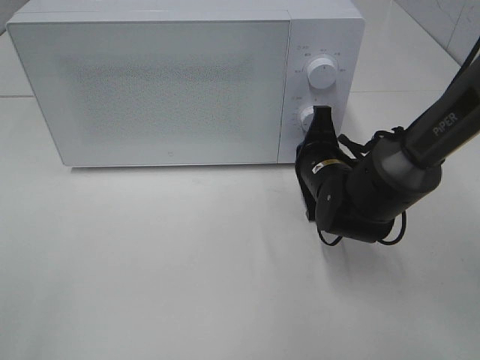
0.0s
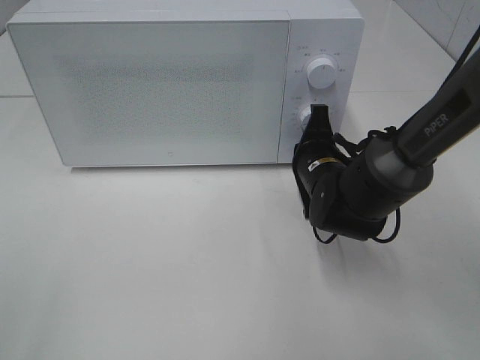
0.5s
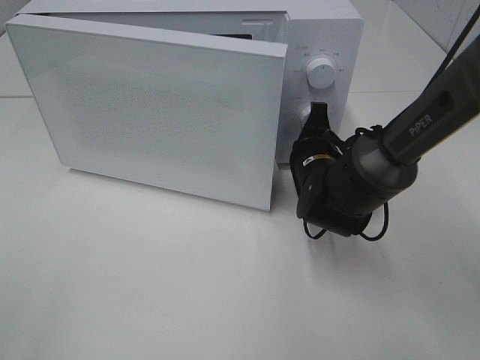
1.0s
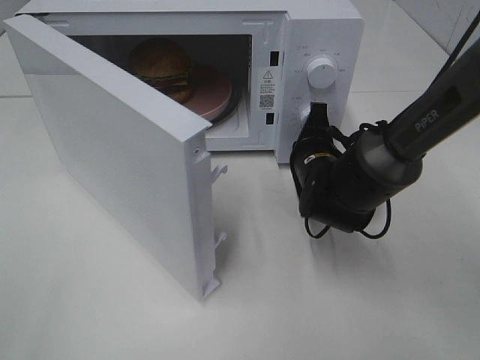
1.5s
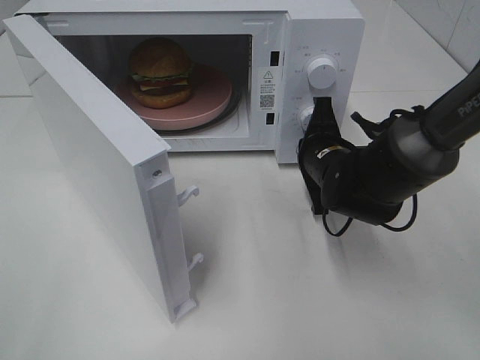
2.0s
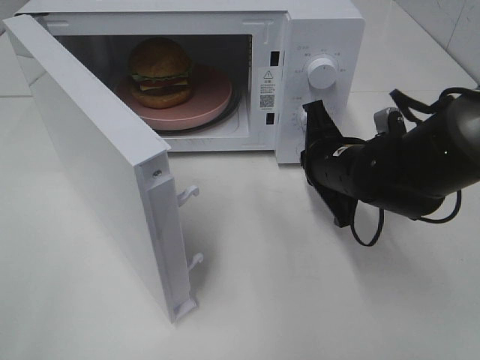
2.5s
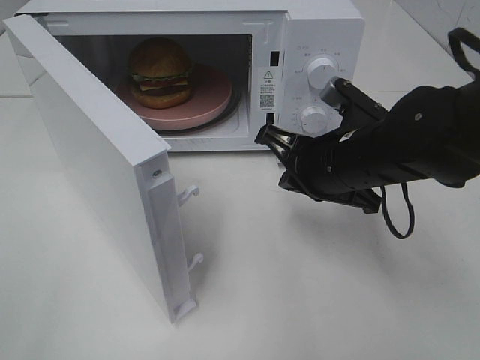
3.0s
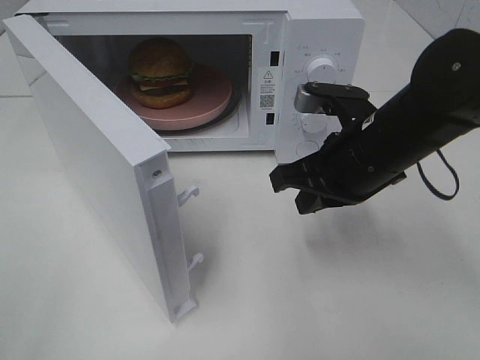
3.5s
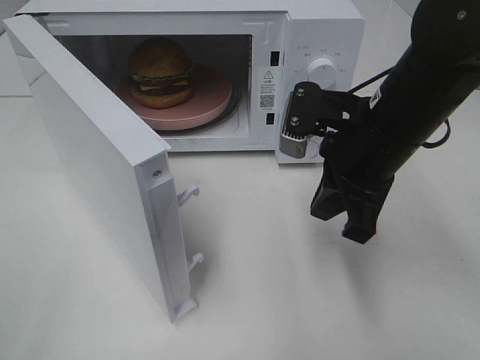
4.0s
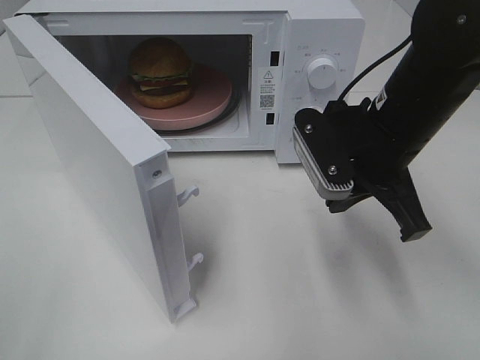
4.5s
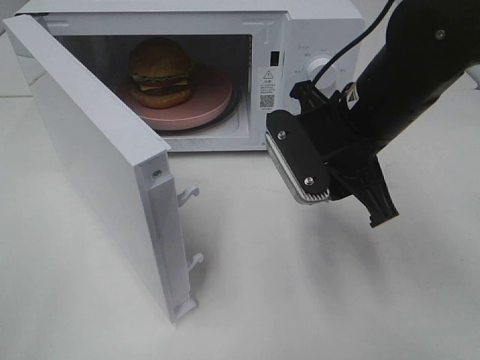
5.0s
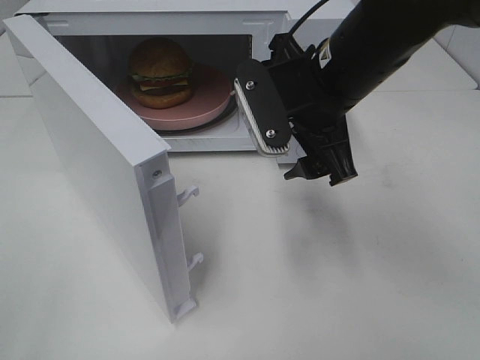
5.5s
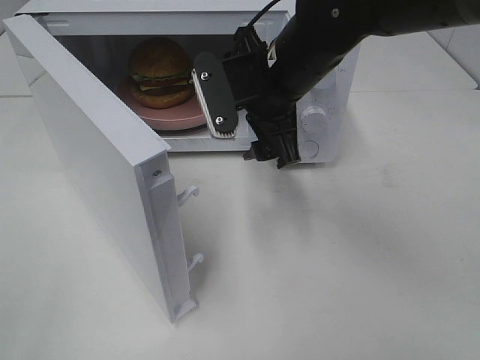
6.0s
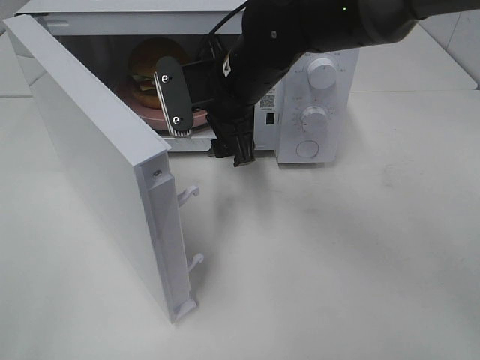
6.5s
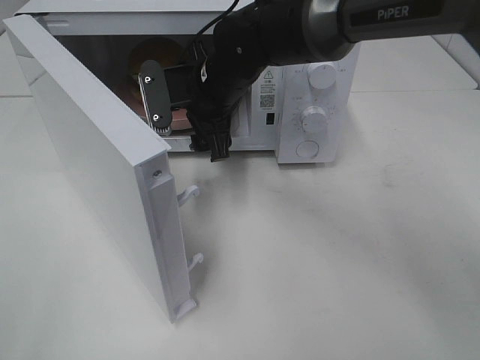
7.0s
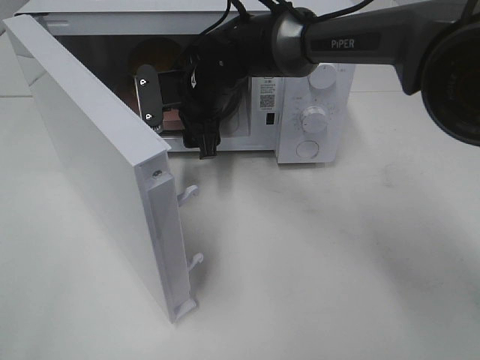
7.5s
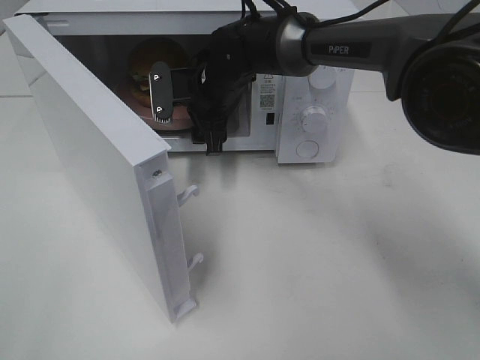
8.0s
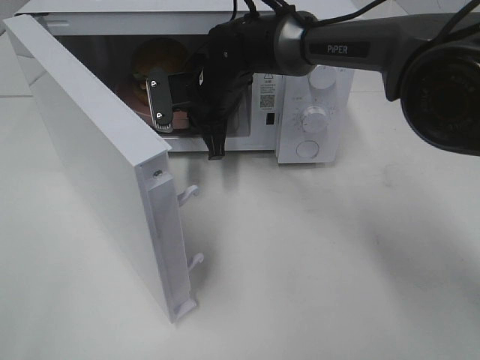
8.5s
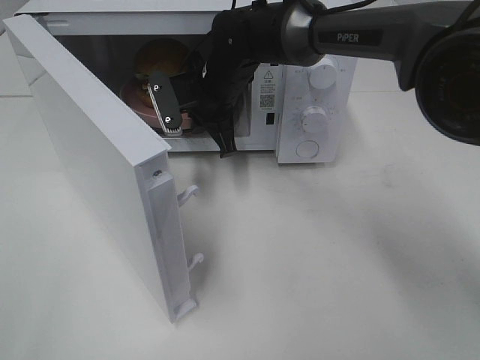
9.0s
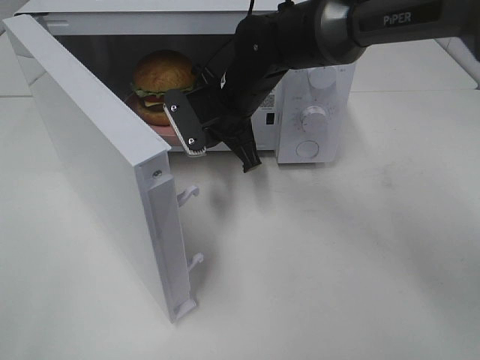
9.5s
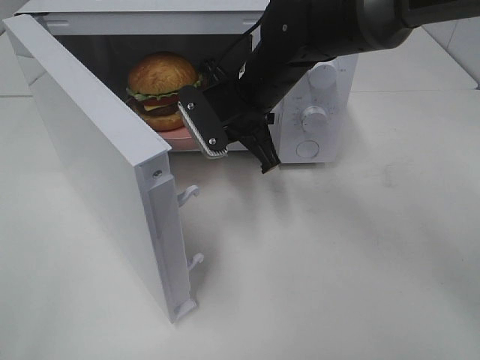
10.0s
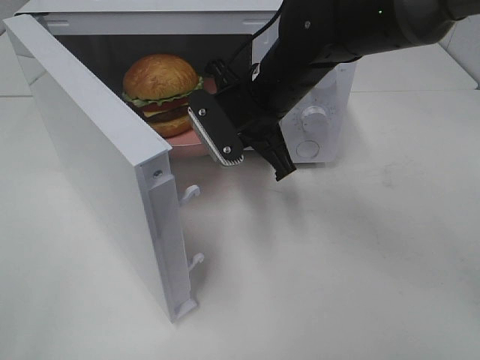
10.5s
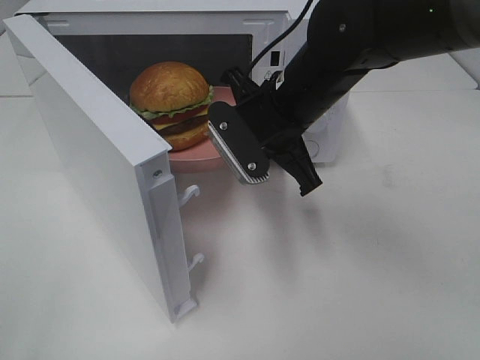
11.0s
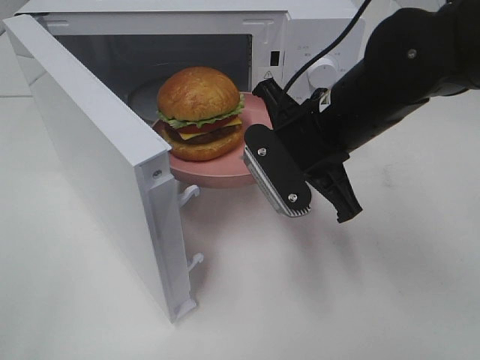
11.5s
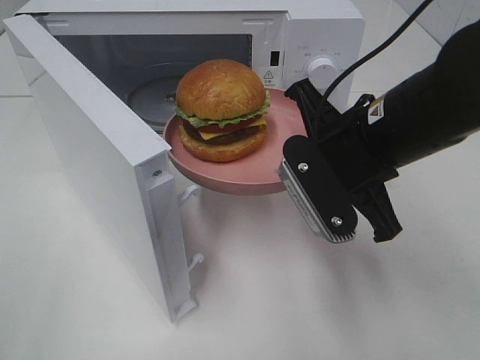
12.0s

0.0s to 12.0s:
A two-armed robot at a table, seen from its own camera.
Task of the whole recording: Heat the burger.
Step, 0.0s to 2.0s: Right hand: press the switch.
Step, 2.5s to 8.5s: Right hand: grab the plate with the hamburger.
2.0s to 4.0s: The right gripper shifts approximately 15 cm upward and backward.
4.0s to 6.0s: The right gripper heads to the left and forward, covering approximately 10 cm, and opens up.
6.0s to 8.0s: The right gripper heads forward, downward and to the left, covering roughly 15 cm.
8.0s to 10.0s: The right gripper is displaced backward by about 5 cm, and closes.
10.0s to 12.0s: The right gripper shifts some 15 cm backward and to the right.

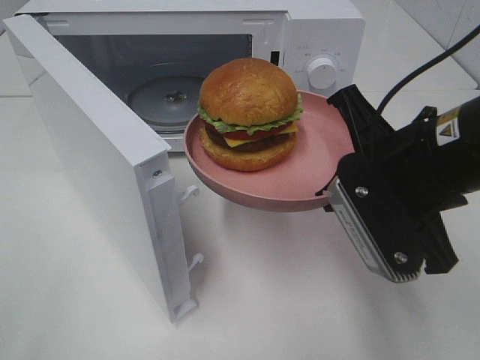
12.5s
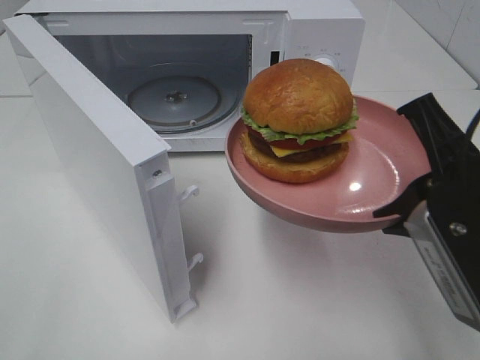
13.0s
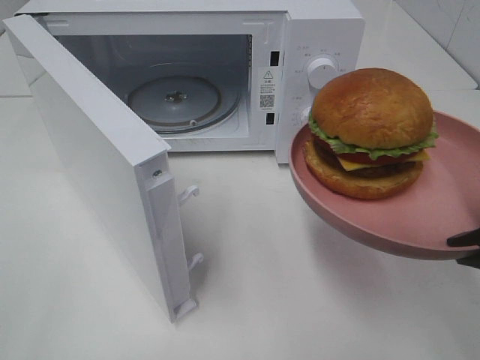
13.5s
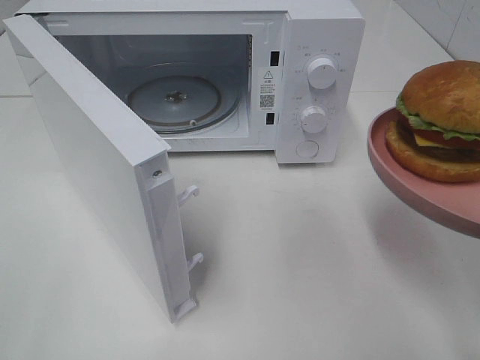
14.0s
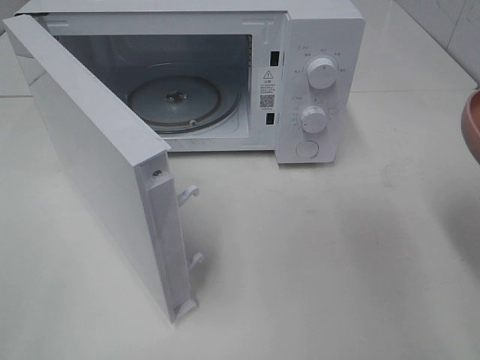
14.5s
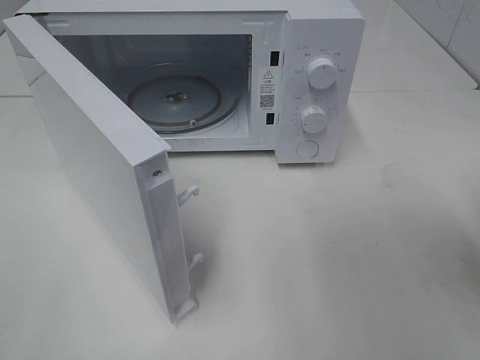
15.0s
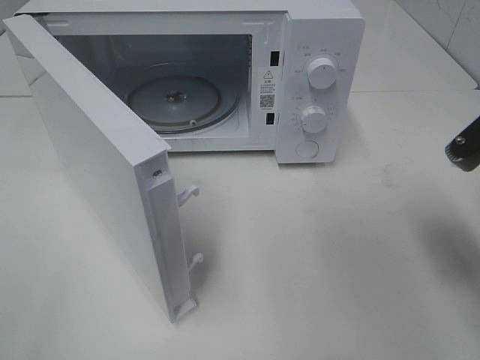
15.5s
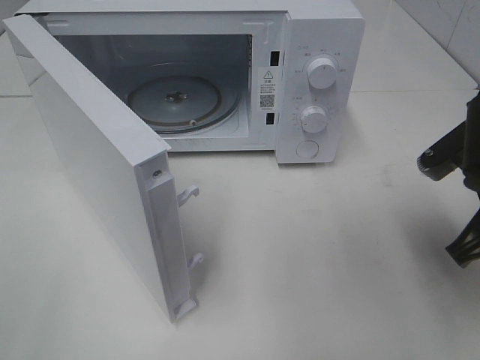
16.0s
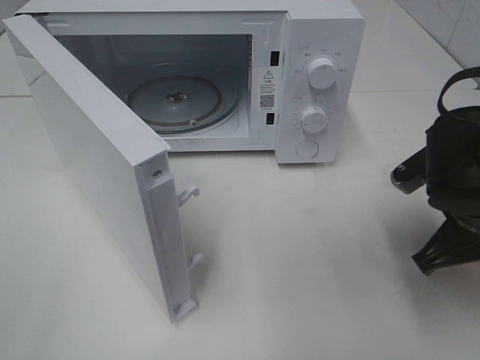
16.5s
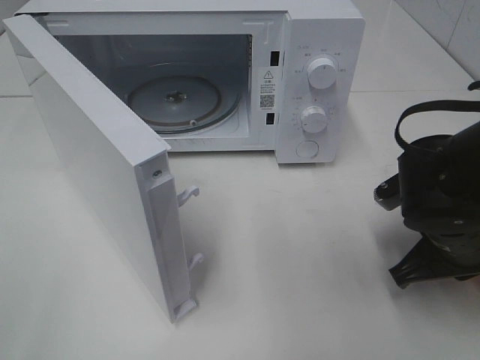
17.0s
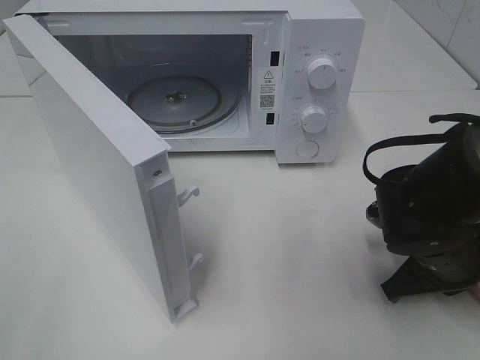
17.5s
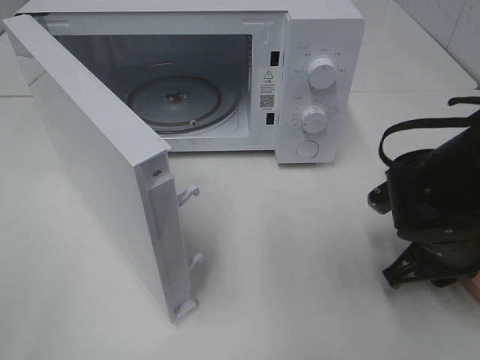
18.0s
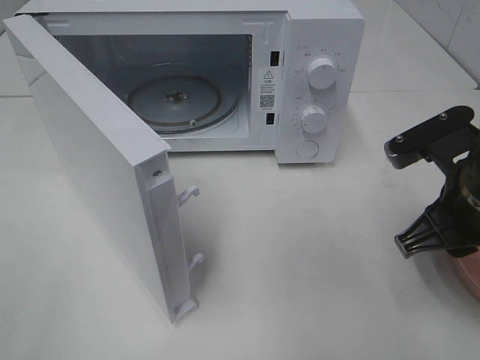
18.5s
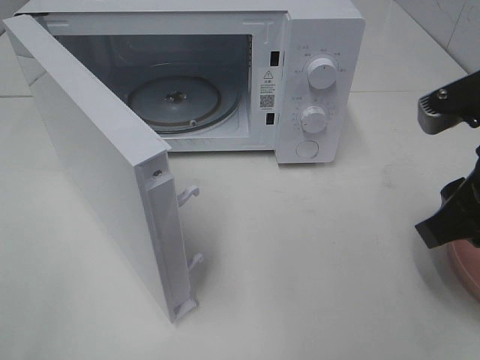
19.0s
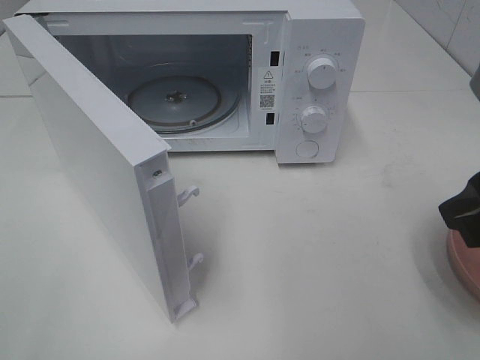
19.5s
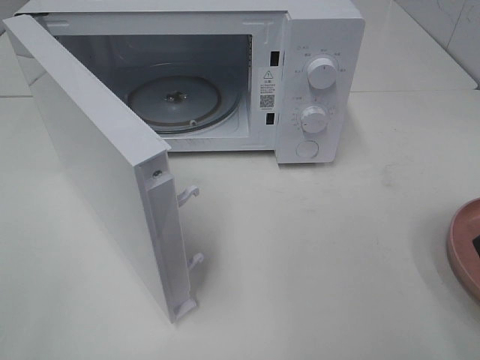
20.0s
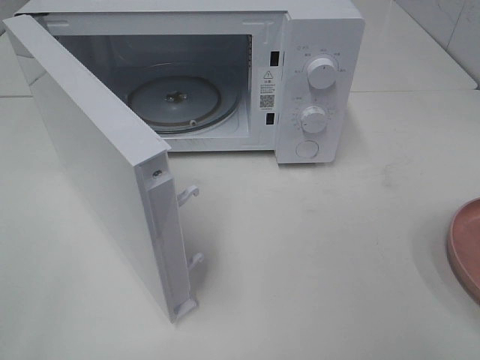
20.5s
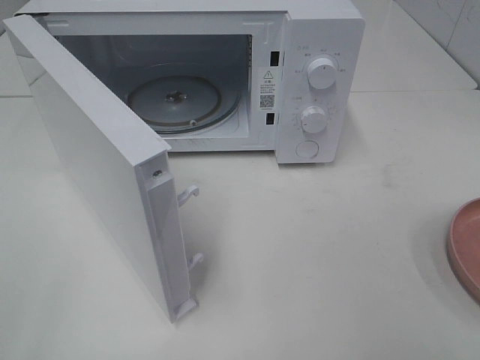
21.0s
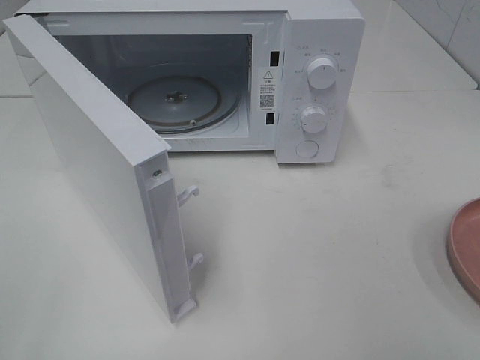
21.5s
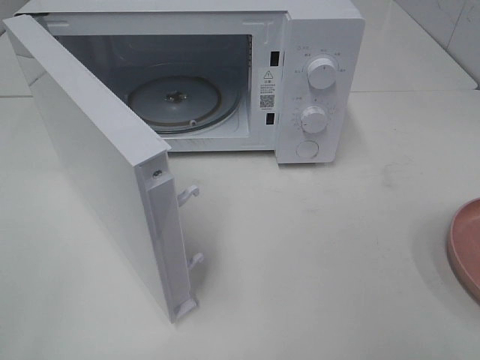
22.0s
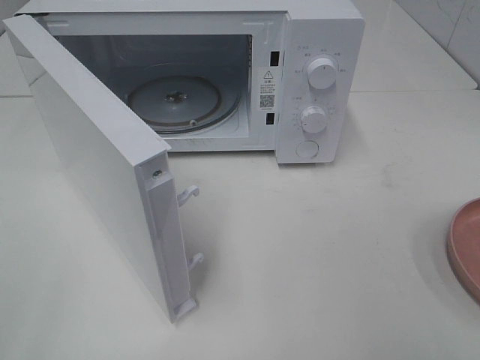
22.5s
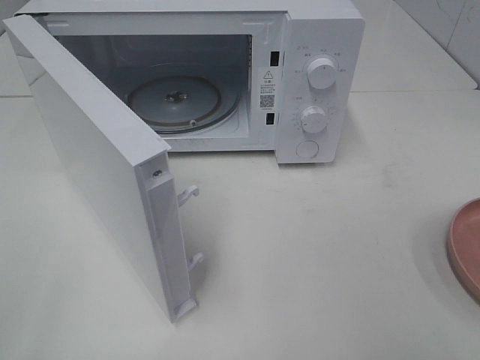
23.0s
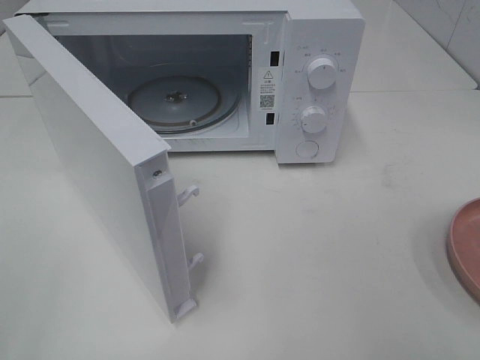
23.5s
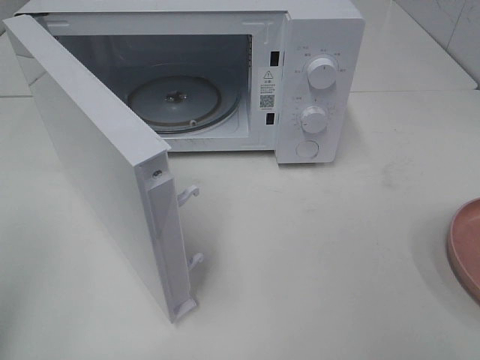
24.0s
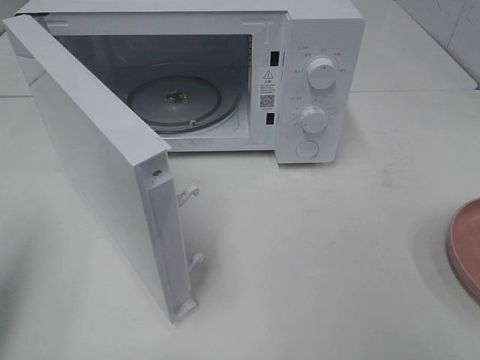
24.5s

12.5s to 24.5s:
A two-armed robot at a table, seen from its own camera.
Task of the whole recording: Heat the burger.
Step, 12.5s to 17.5s: Right hand: place the plate on the table.
12.5s to 14.5s: The right gripper travels to the right and backward by some 15 cm.
14.5s to 16.5s: The right gripper moves forward and downward, roughly 15 cm.
16.5s to 18.5s: The right gripper reaches about 5 cm downward, then returns, and opens.
18.5s to 20.5s: The right gripper shifts roughly 20 cm backward, upward and to the right, and opens its fingers.
22.5s to 24.5s: The left gripper travels forward by approximately 15 cm, and closes its fingers.

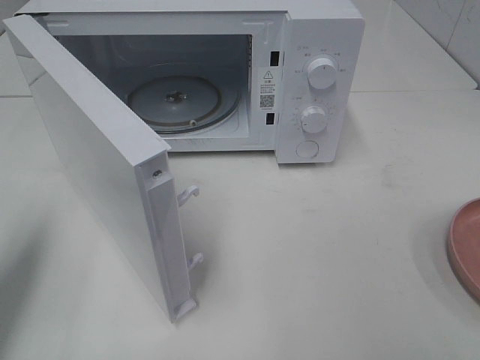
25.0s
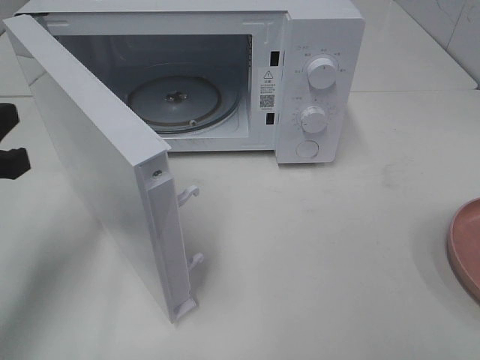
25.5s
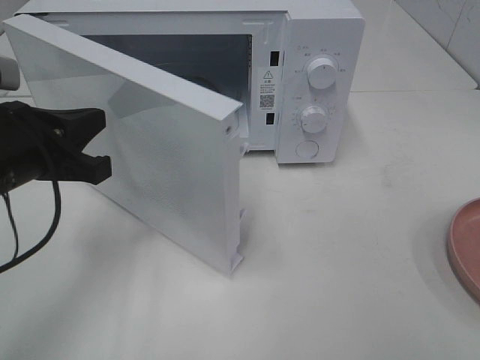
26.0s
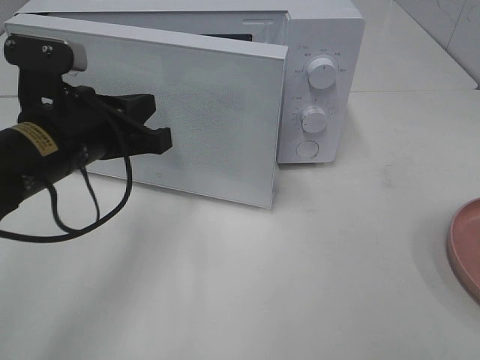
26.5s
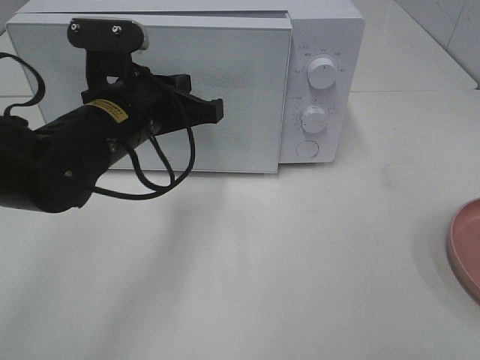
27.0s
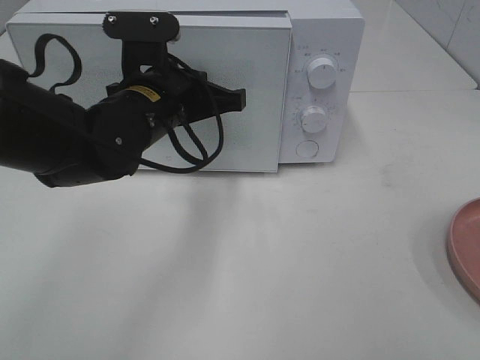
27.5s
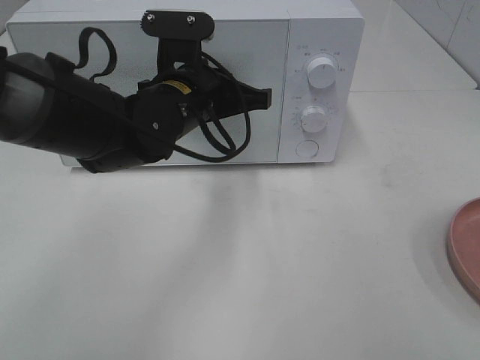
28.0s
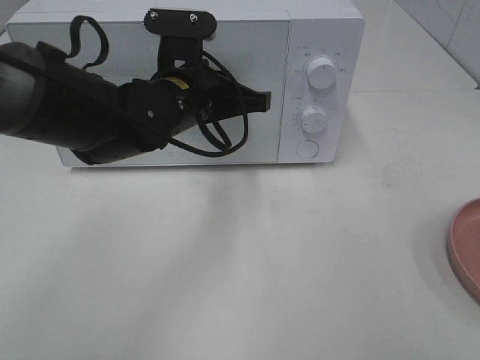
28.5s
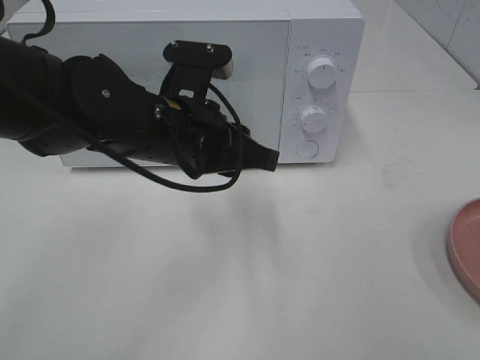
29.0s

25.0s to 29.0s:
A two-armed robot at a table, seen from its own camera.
Task of the whole recording: Heat the burger.
Step, 25.0s to 28.5s: Left hand: close the microwave door.
25.0s to 27.0s: The left gripper is displaced to the right and forward by approximately 25 cm.
27.0s to 29.0s: The left gripper moves some 5 cm, and opens its fingers.
